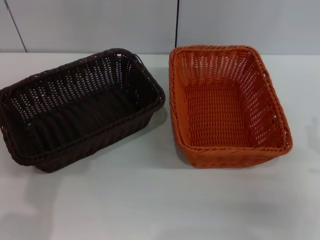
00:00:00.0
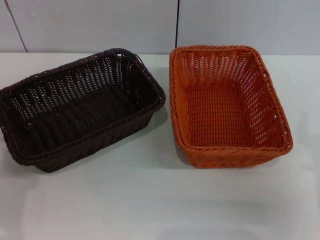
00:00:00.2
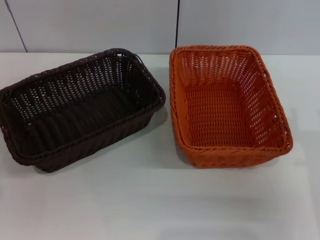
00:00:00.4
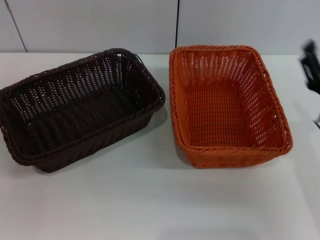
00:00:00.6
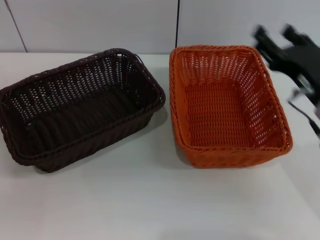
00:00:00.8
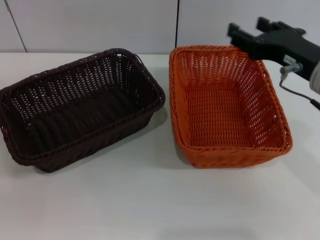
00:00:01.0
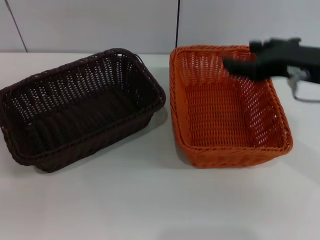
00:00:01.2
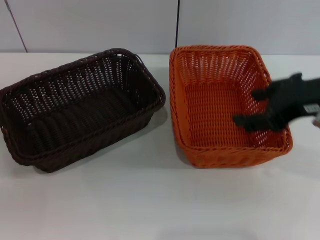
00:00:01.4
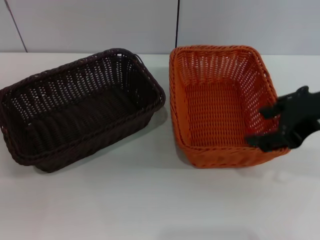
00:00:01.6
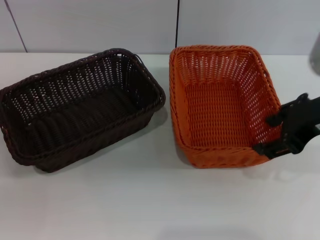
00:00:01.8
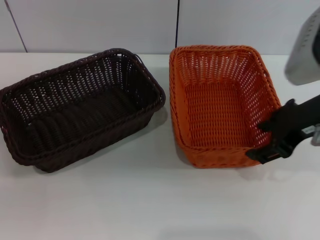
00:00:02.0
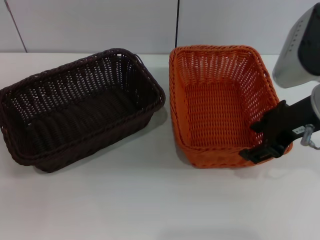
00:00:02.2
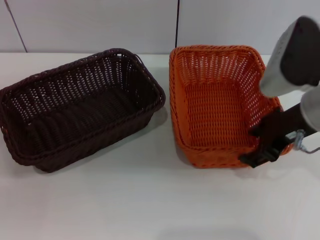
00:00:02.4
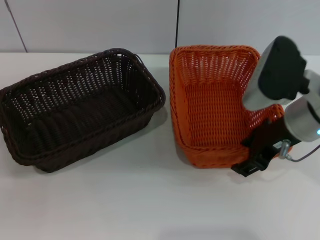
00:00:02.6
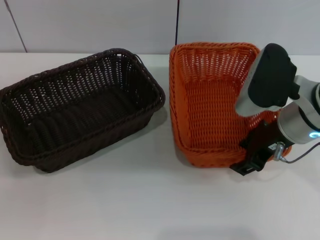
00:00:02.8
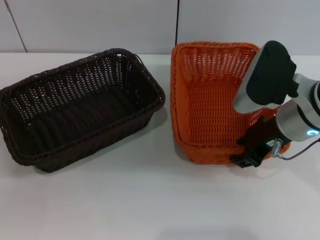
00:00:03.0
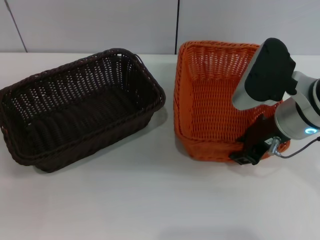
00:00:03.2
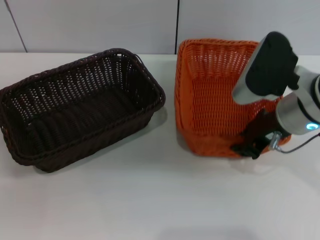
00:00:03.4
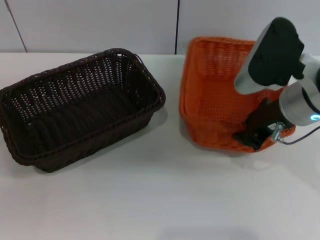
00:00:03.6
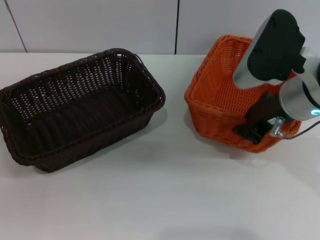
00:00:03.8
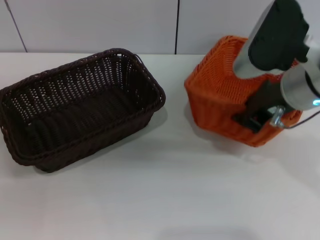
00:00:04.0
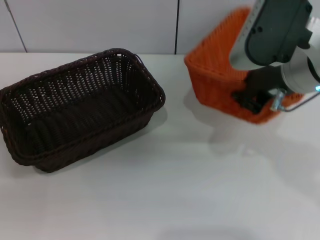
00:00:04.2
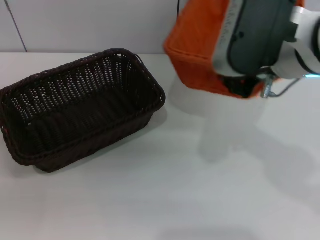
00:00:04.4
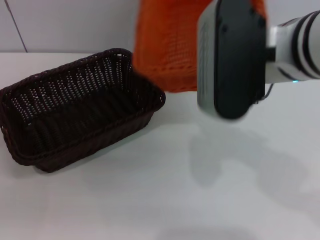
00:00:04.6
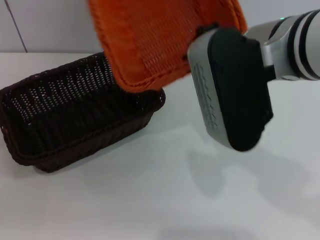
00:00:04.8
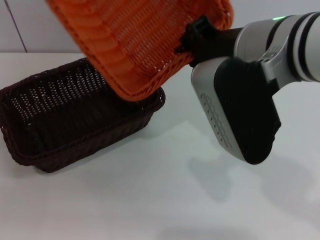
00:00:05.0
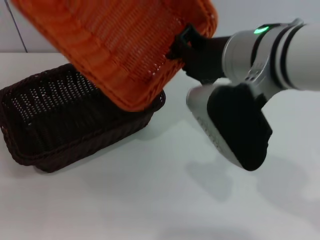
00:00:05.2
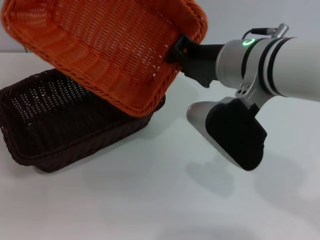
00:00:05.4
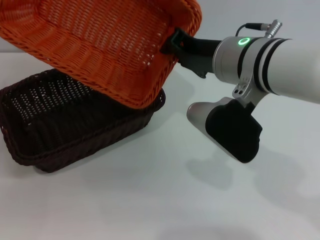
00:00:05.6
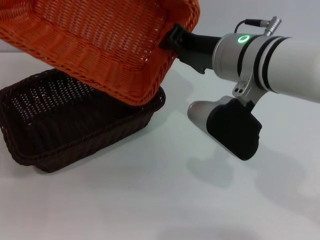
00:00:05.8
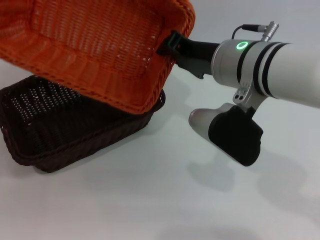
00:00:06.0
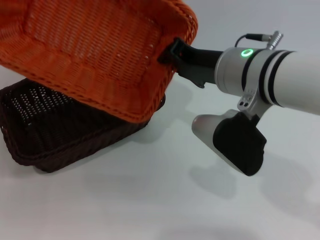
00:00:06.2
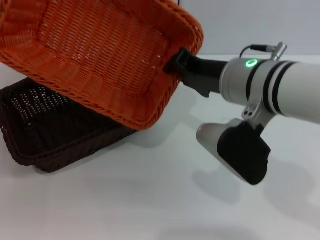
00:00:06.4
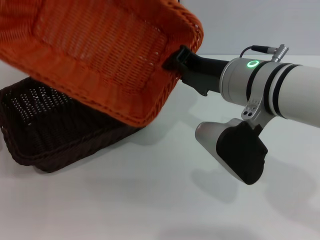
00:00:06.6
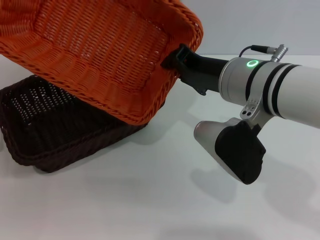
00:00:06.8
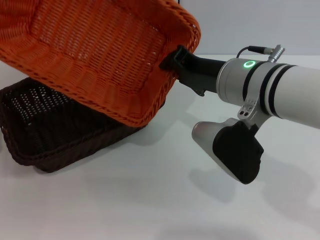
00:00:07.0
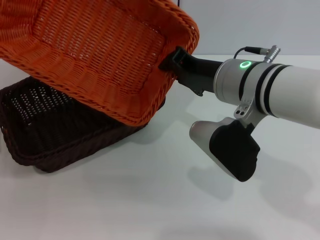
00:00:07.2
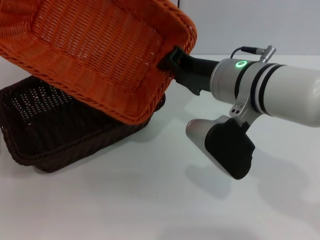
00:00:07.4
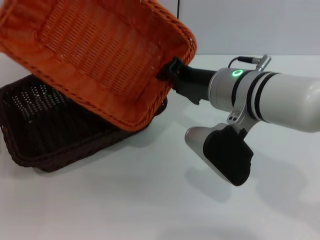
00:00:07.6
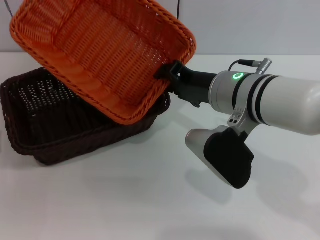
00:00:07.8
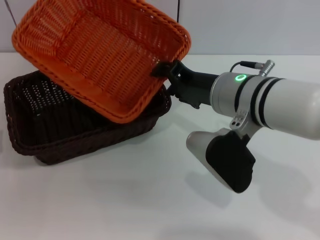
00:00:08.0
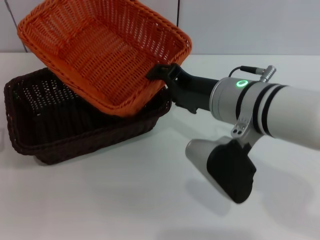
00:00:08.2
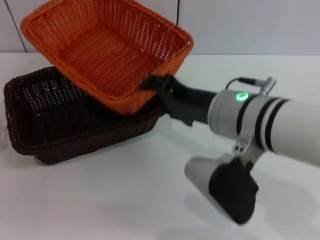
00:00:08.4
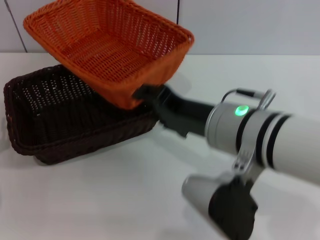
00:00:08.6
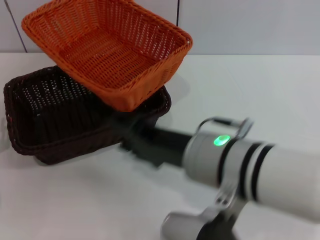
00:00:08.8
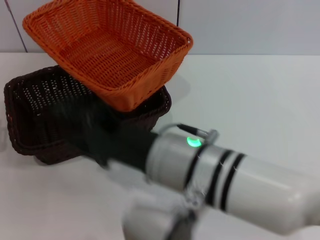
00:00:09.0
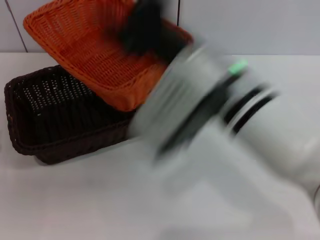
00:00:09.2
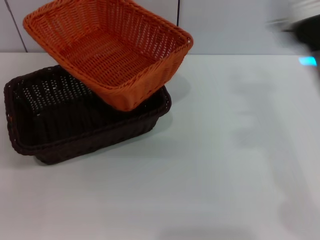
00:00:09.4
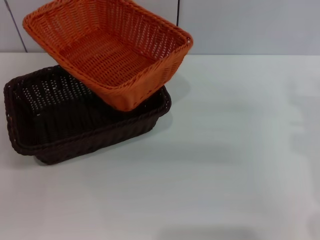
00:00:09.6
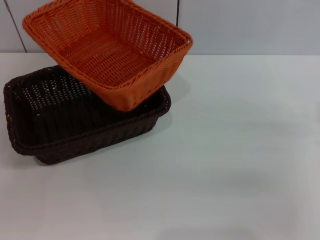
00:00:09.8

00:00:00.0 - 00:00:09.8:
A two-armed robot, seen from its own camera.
Step, 00:00:00.0 - 00:00:03.4: Pick up the light basket with the right gripper.
Step, 00:00:03.8 - 00:00:08.8: Place the light basket on the dark basket with the right gripper.
00:00:00.0 - 00:00:01.4: The right gripper heads upward, covering roughly 20 cm.
00:00:01.4 - 00:00:02.8: The right gripper goes approximately 10 cm downward.
00:00:02.8 - 00:00:04.2: The right gripper shifts roughly 10 cm upward, and closes up.
00:00:04.2 - 00:00:05.6: The right gripper travels to the left by some 5 cm.
00:00:07.0 - 00:00:08.4: The right gripper opens.
00:00:08.4 - 00:00:09.8: The right gripper heads to the right and downward, covering about 20 cm.

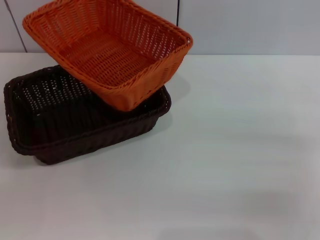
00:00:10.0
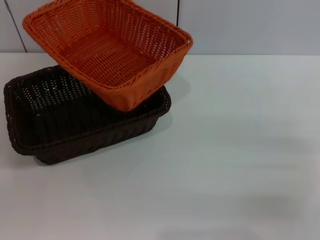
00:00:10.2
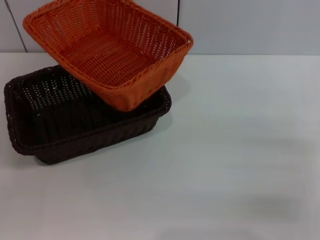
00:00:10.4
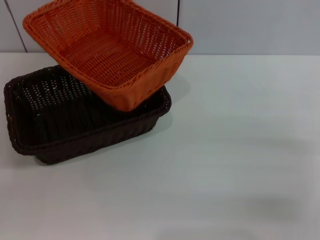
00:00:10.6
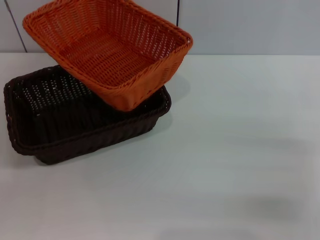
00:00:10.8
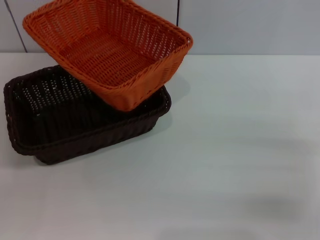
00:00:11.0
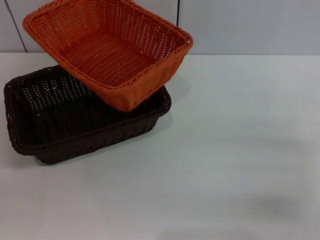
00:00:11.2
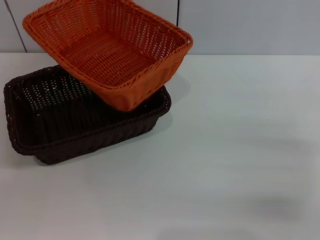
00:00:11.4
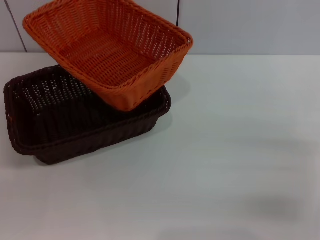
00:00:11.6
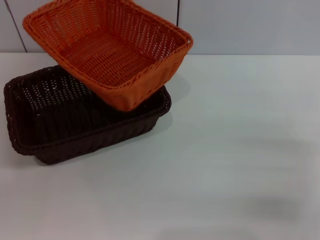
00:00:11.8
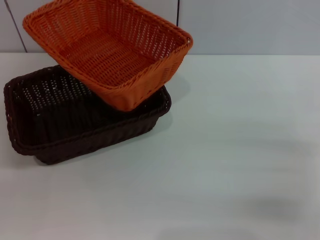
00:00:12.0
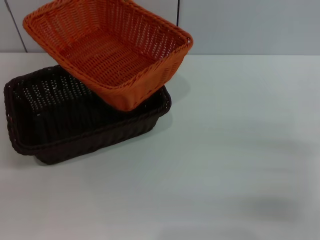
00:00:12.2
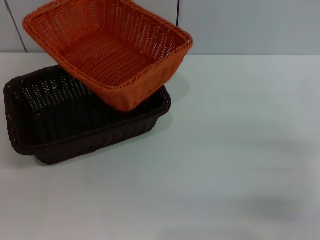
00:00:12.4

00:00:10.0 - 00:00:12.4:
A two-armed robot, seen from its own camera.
00:00:11.2 - 00:00:12.4: Neither gripper changes place.
